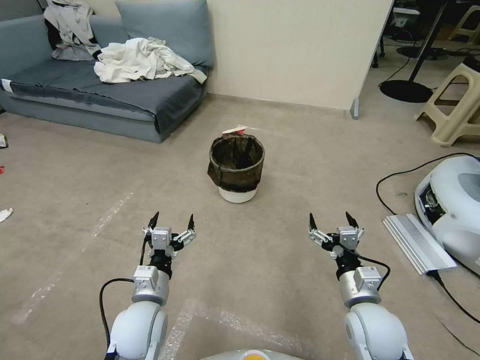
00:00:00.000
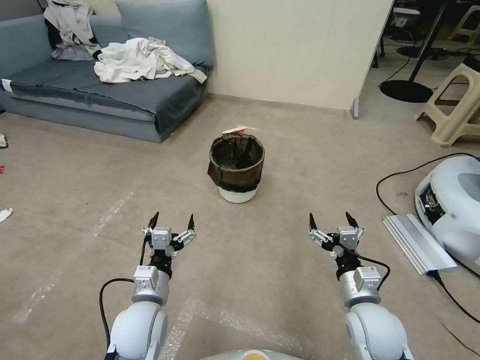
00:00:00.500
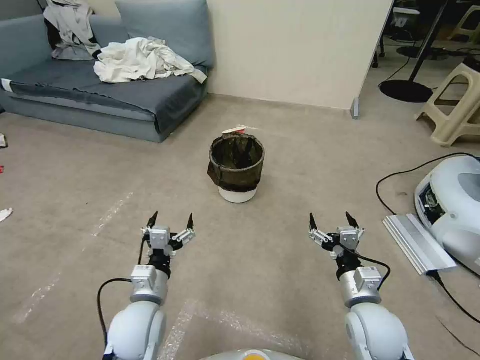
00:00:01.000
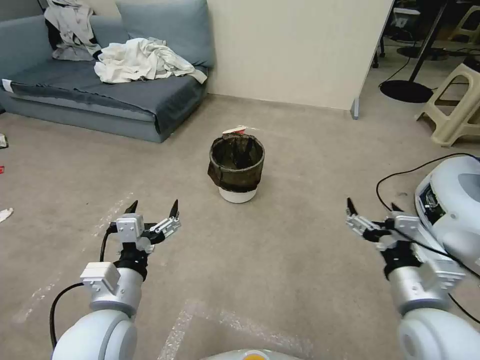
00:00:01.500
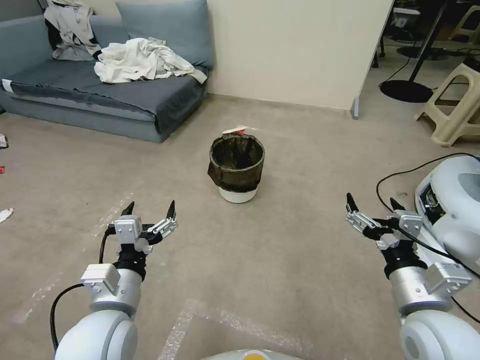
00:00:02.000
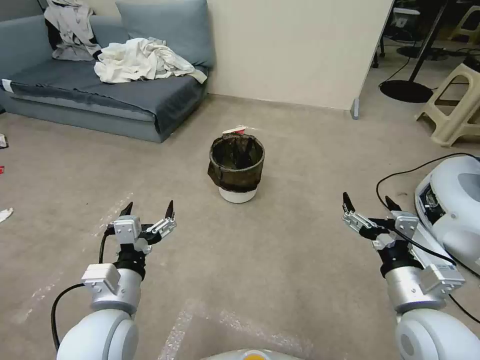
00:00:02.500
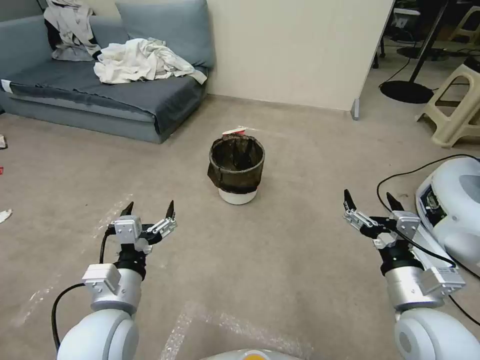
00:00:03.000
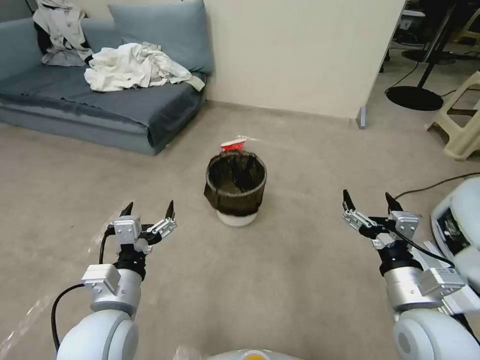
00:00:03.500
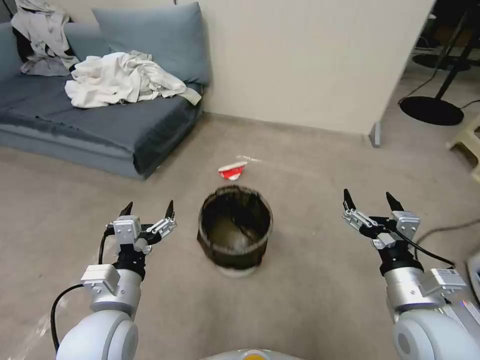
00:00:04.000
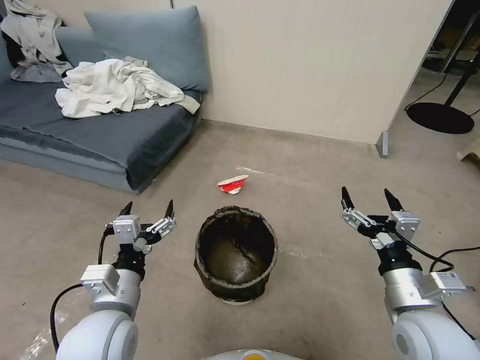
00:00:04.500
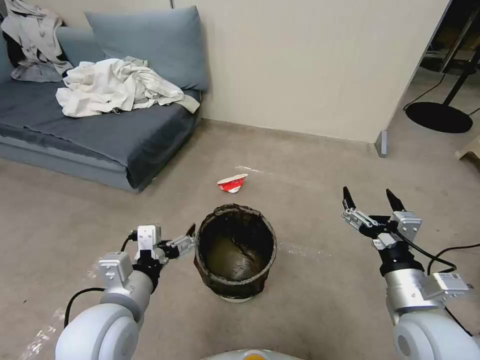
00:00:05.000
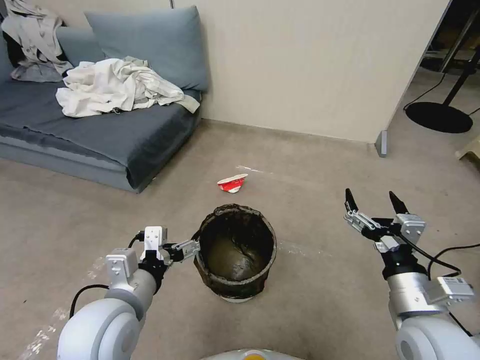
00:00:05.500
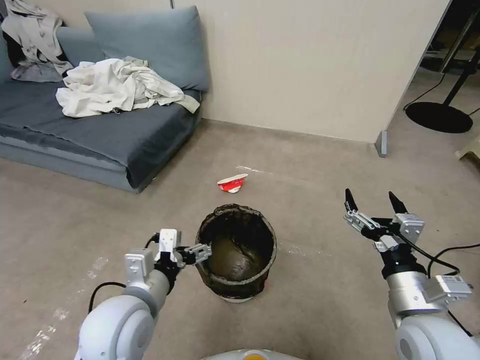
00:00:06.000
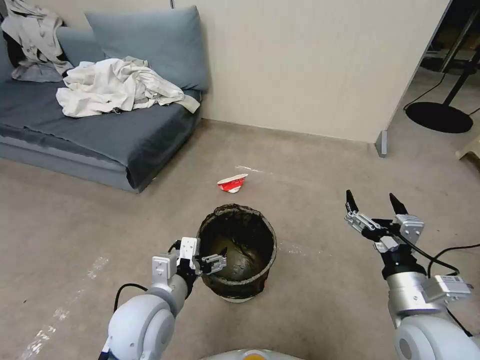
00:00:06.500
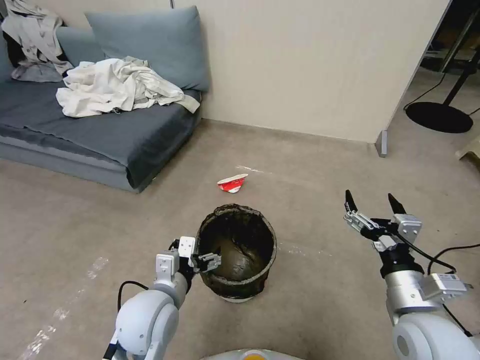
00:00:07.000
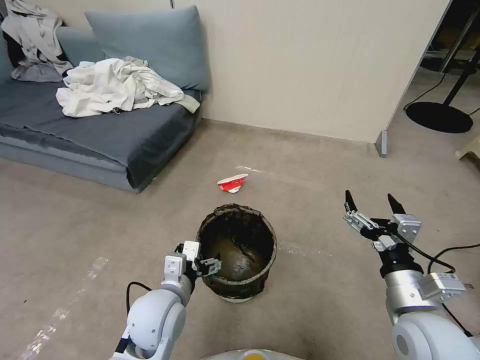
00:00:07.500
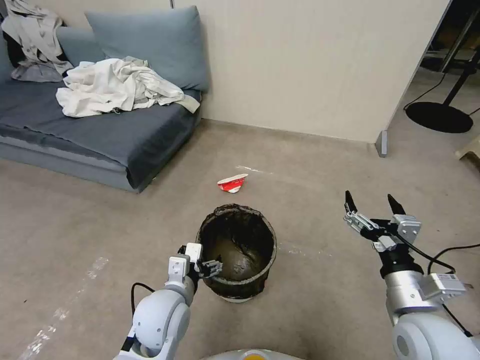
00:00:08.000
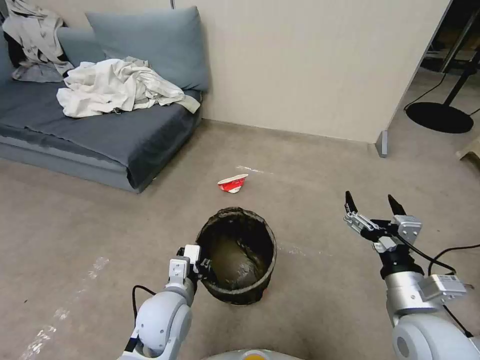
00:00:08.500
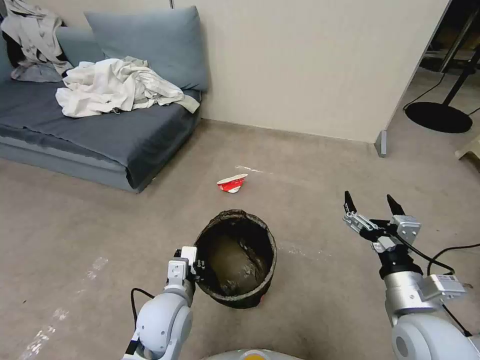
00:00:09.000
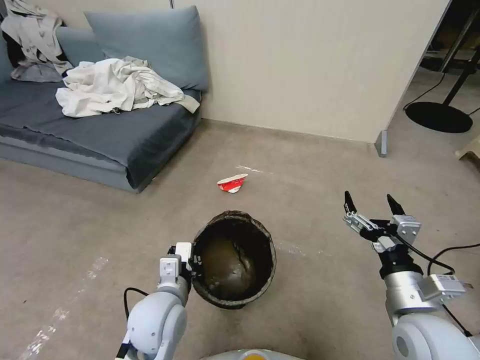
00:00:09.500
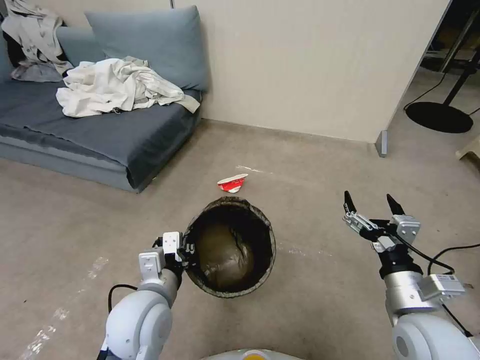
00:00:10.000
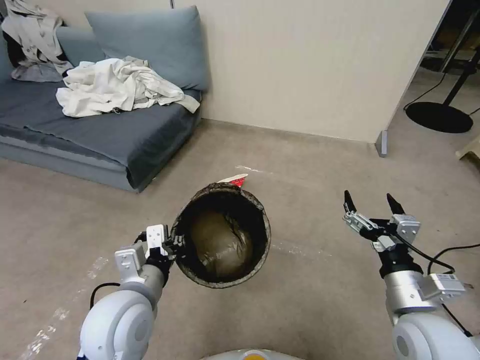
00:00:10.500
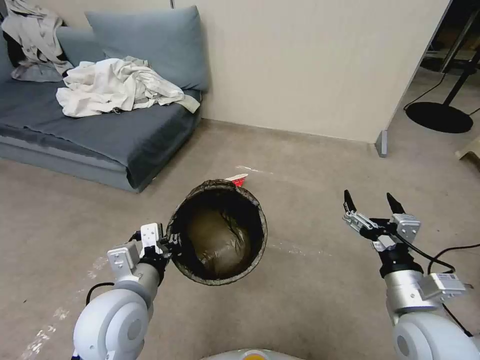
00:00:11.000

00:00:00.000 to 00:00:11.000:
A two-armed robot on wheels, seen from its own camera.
Task of the whole recording: Pick up the trash can from the floor.
00:00:05.500 to 00:00:07.500: The left gripper heads downward, covering approximately 10 cm.
00:00:07.500 to 00:00:09.000: The left gripper closes.
00:00:09.000 to 00:00:11.000: The left gripper shifts some 10 cm upward.

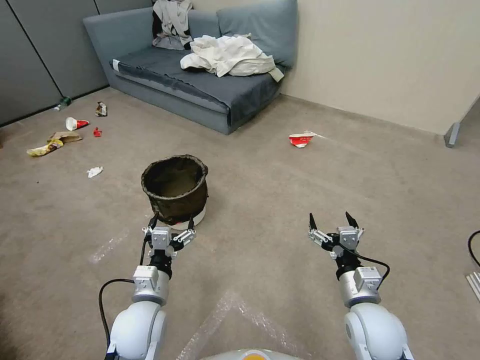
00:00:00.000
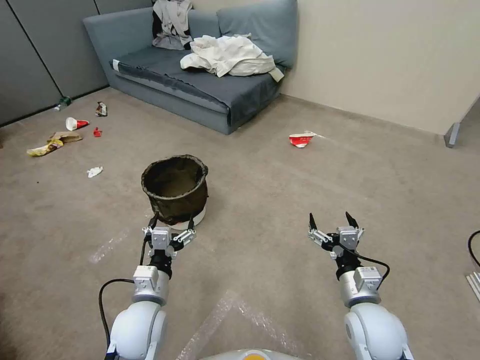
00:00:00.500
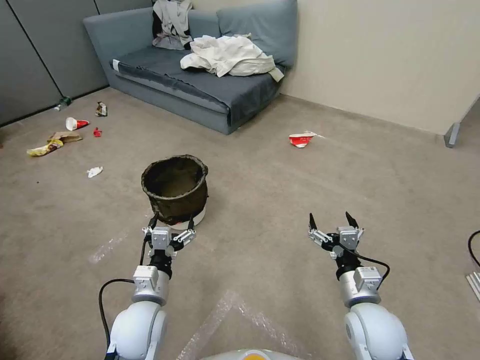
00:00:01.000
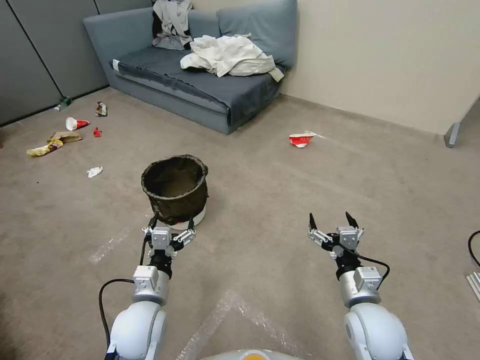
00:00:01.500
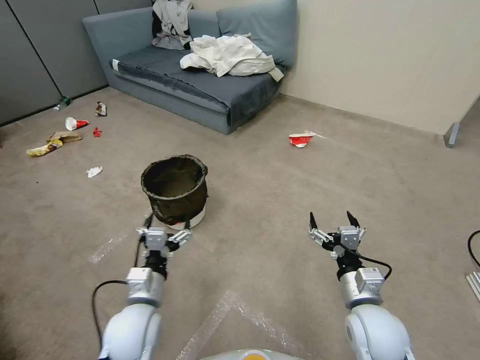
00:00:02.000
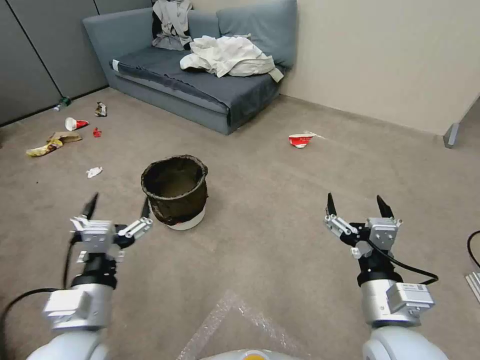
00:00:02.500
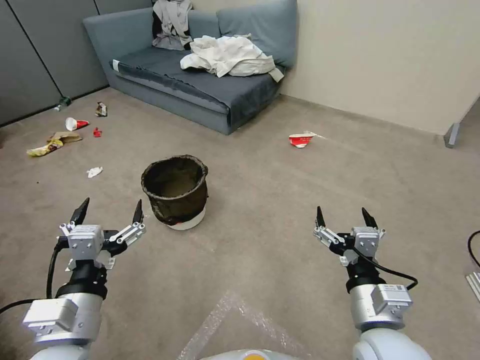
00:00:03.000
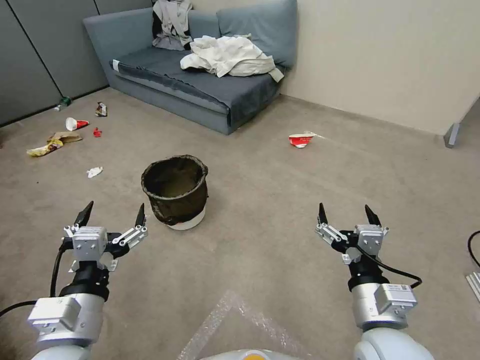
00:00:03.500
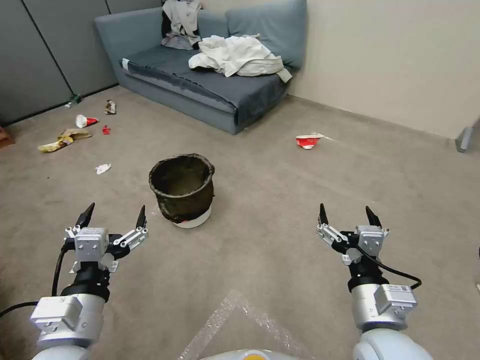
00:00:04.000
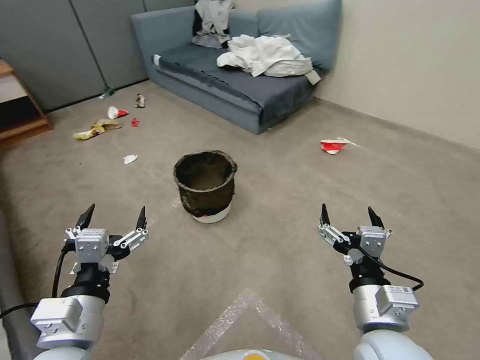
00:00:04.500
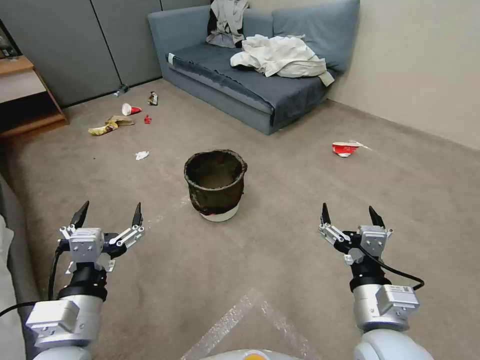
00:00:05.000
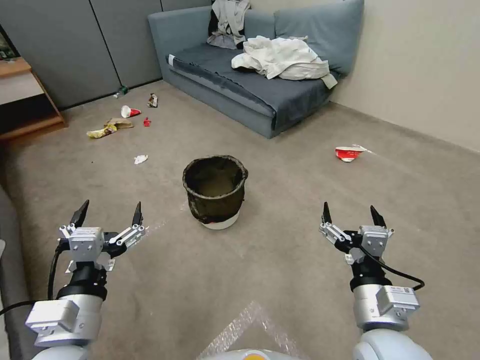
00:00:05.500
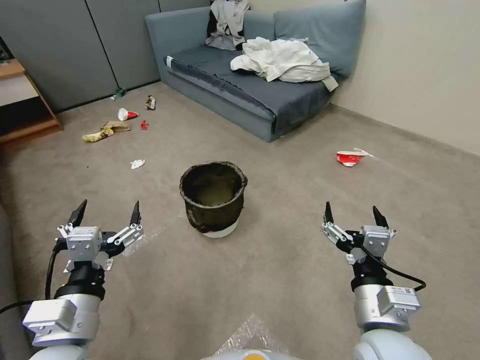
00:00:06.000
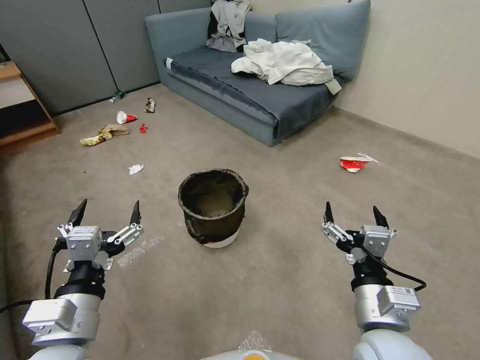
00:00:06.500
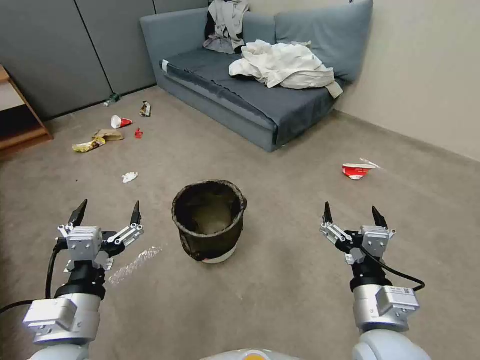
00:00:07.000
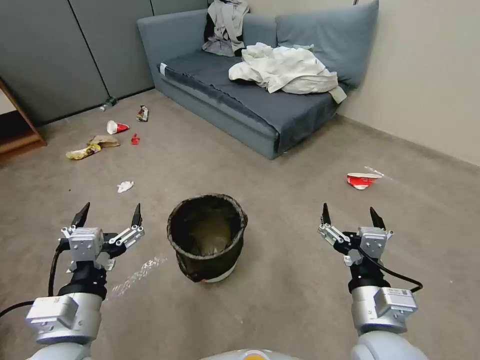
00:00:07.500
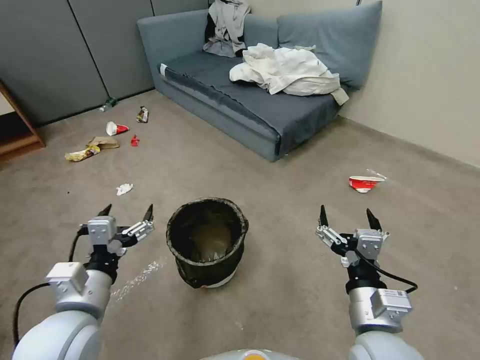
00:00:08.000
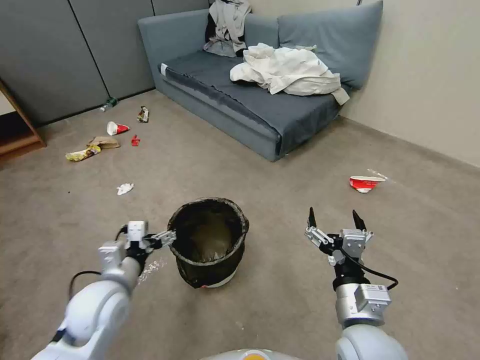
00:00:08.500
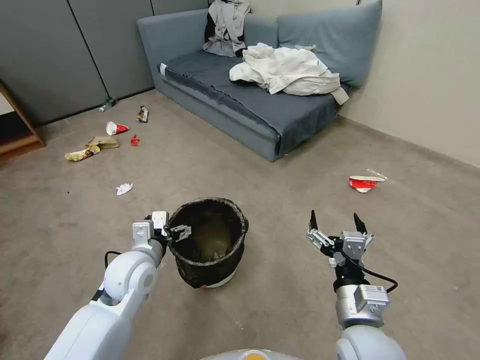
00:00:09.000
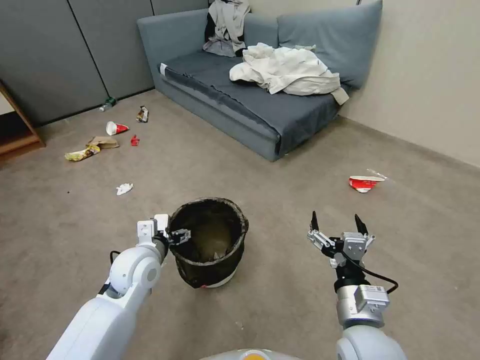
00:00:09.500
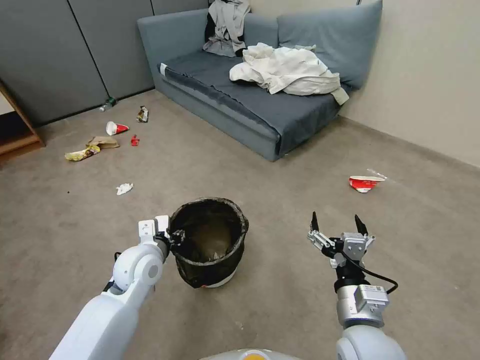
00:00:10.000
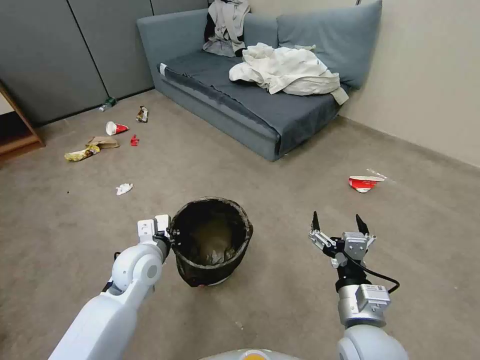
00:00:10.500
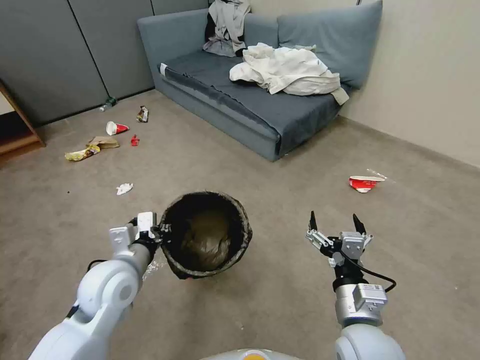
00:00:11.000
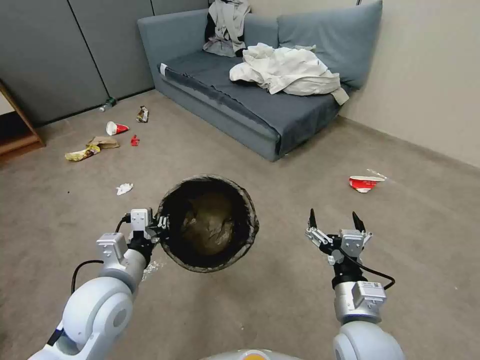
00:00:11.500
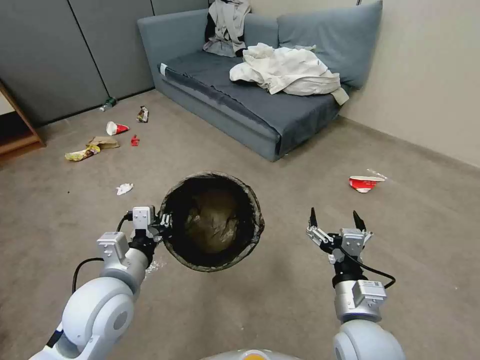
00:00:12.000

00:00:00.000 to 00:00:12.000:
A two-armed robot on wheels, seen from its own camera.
Task of the whole recording: Pick up the trash can from the floor.
00:00:02.000 to 00:00:04.000: The two grippers go roughly 15 cm upward and backward.
00:00:06.000 to 00:00:08.000: The left gripper shifts by some 5 cm.
00:00:08.000 to 00:00:10.000: The left gripper heads forward and downward, covering roughly 15 cm, and closes up.
00:00:10.000 to 00:00:12.000: The left gripper goes roughly 10 cm backward and upward, and closes.
